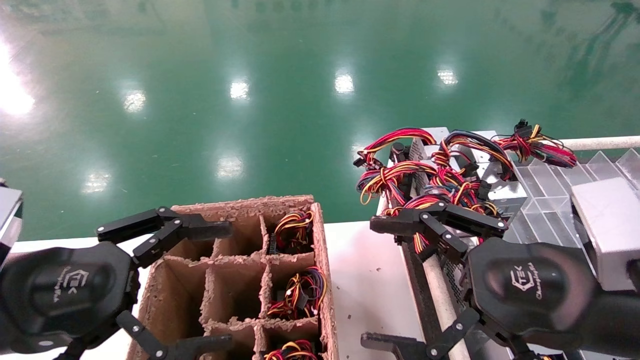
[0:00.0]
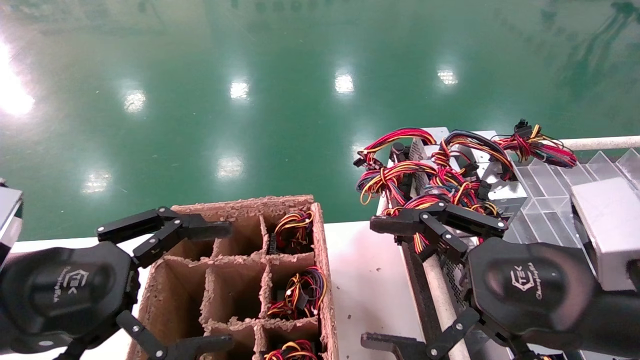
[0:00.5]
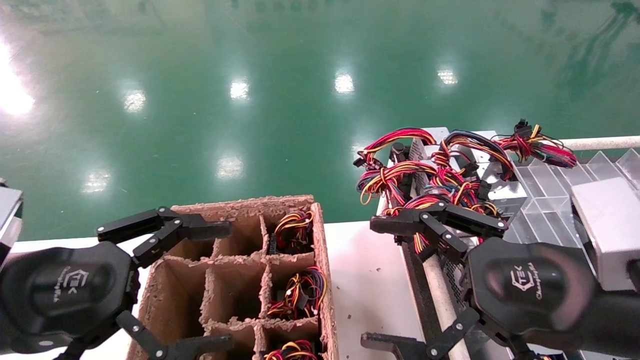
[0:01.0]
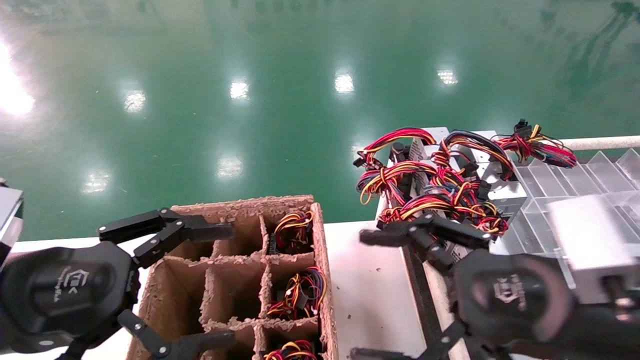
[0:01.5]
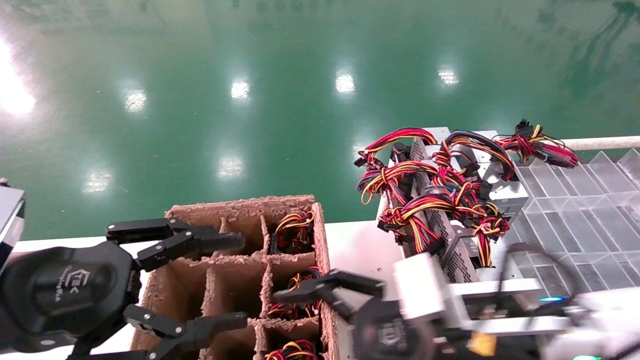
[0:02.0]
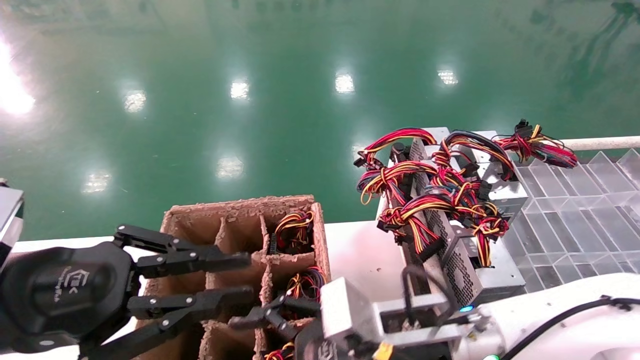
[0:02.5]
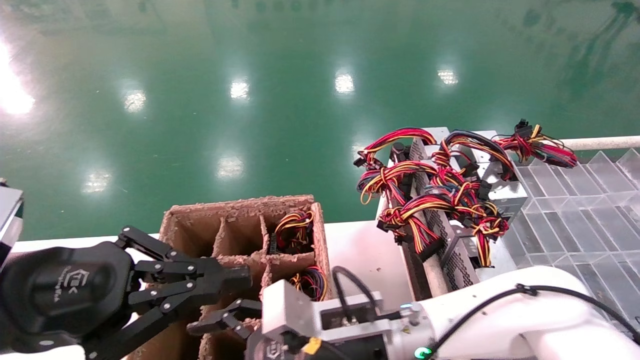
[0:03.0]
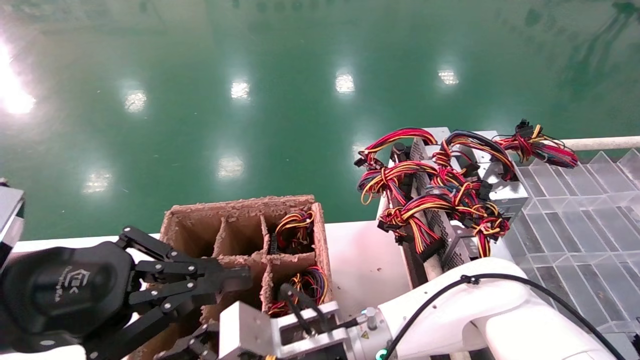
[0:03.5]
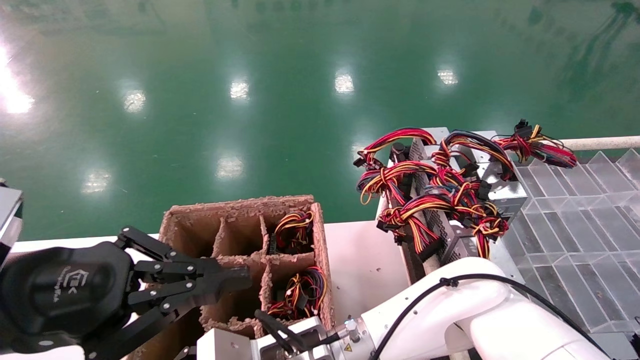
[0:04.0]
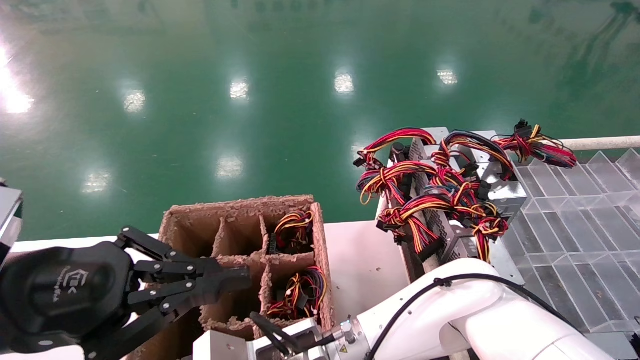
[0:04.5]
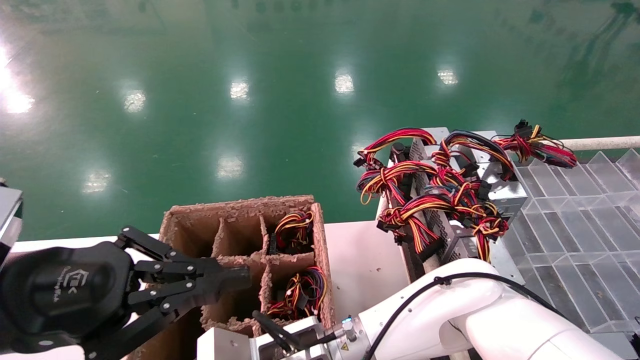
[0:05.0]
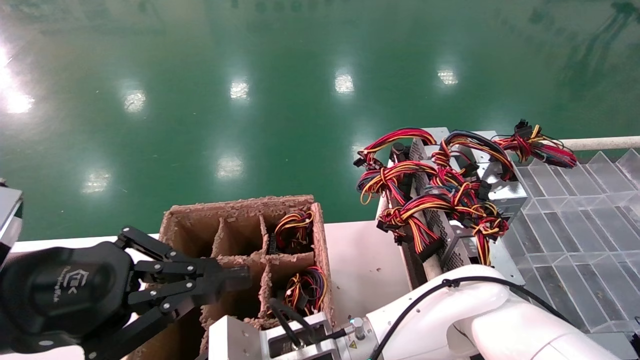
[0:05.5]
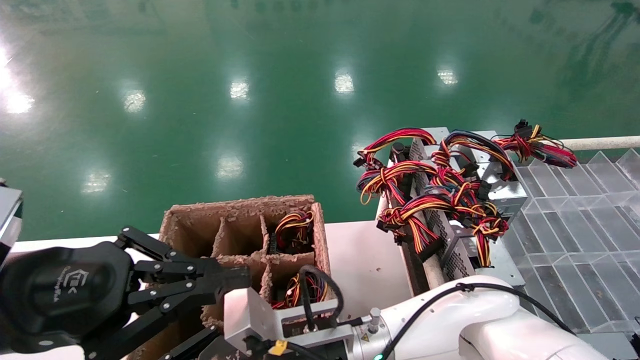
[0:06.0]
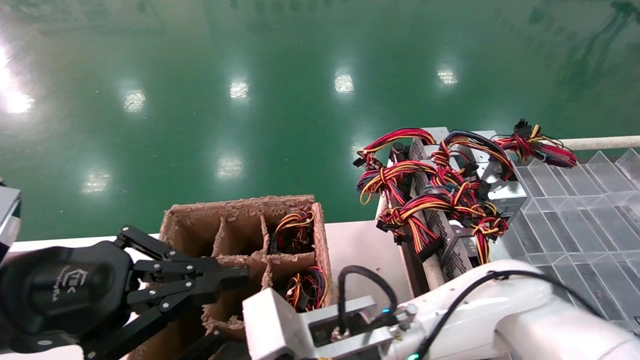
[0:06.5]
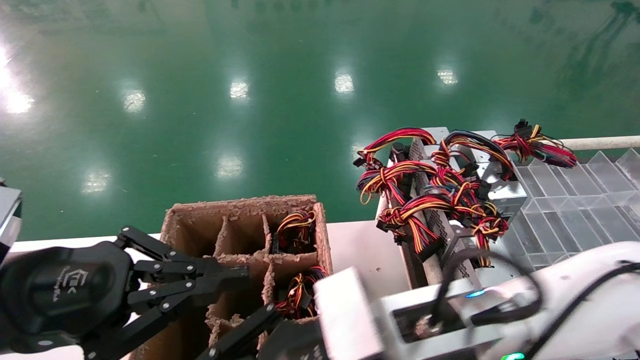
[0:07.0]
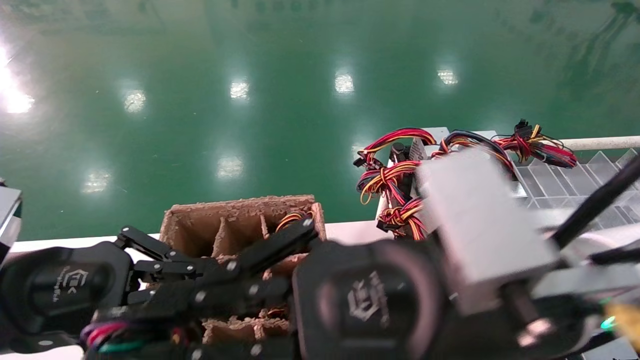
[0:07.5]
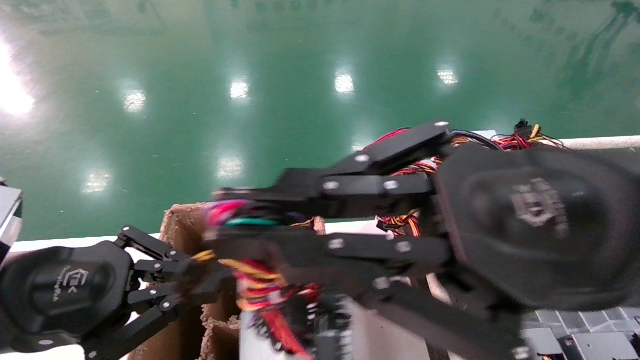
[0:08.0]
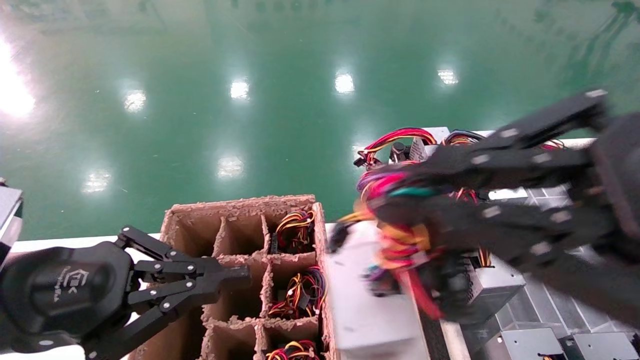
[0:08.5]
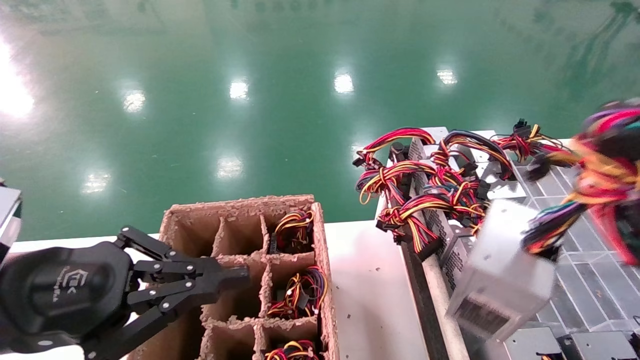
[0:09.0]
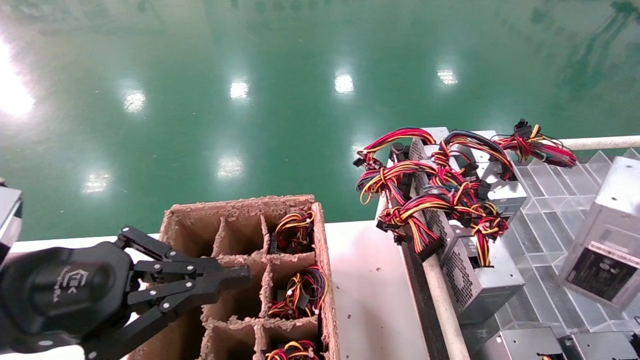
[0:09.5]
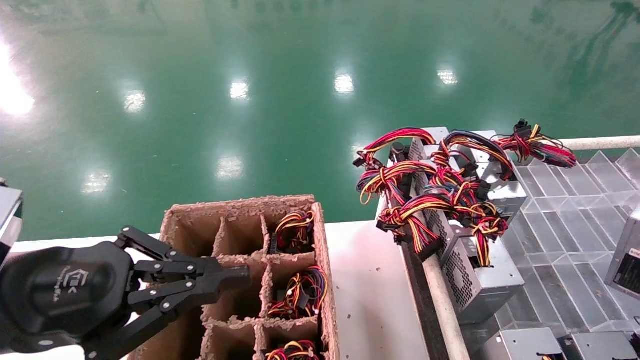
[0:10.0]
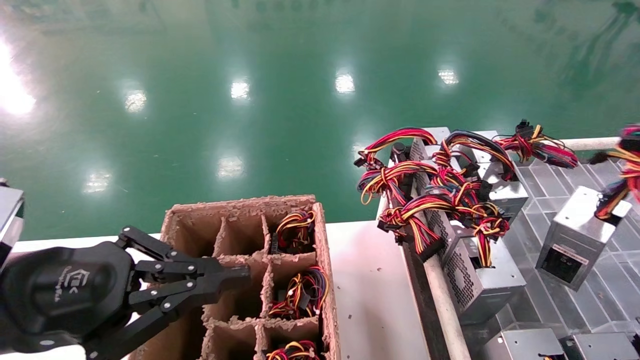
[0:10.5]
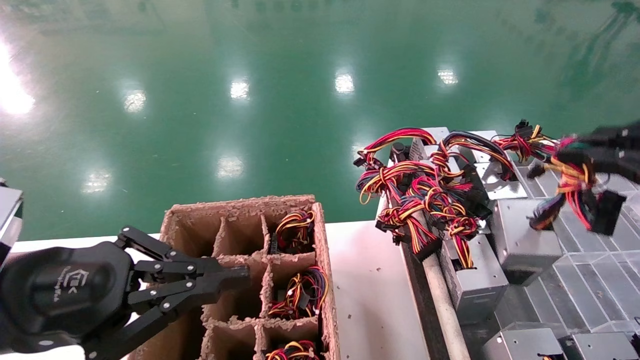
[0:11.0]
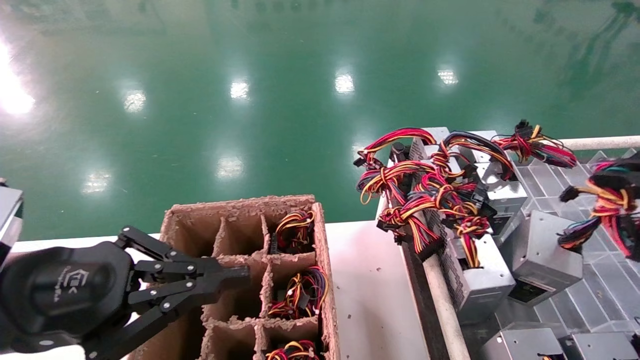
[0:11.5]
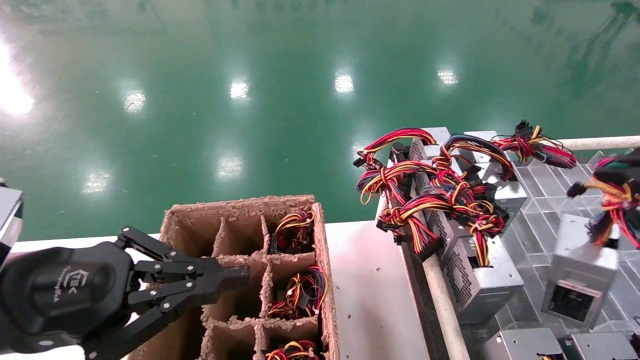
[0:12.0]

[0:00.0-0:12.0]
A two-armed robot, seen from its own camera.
Step, 0:02.0 to 0:05.0: Grab the main unit power supply from the containment box.
0:00.0 to 0:02.0: The right gripper goes approximately 10 cm to the left and downward.
0:02.0 to 0:04.0: The right gripper goes some 20 cm to the left and downward. Meanwhile the left gripper closes up.
0:04.0 to 0:06.0: The right gripper closes its fingers.
0:06.0 to 0:08.0: The right gripper travels upward, to the right and backward by about 30 cm.
0:08.0 to 0:10.0: The right gripper moves to the right, about 30 cm.
0:10.0 to 0:12.0: The right gripper heads forward, covering about 5 cm.

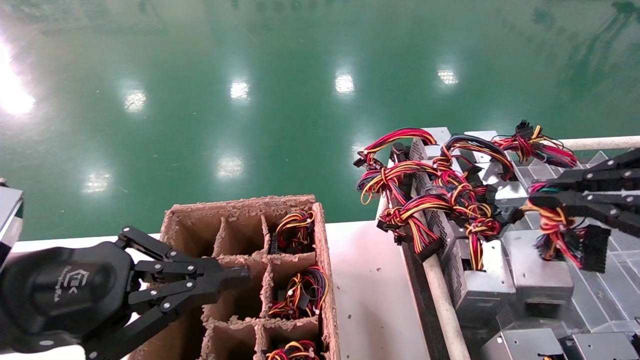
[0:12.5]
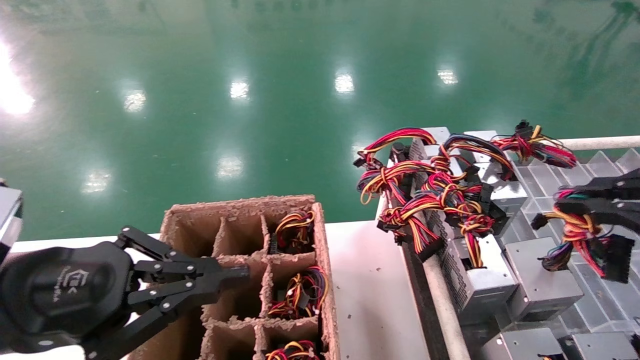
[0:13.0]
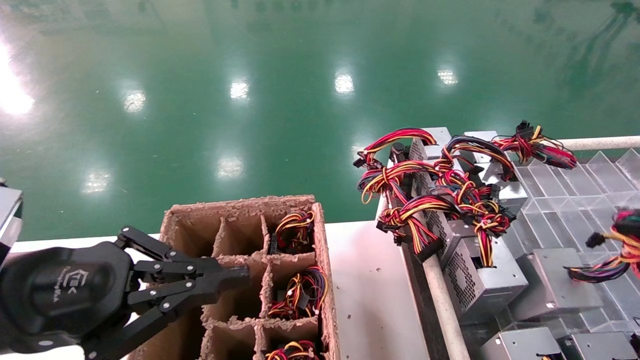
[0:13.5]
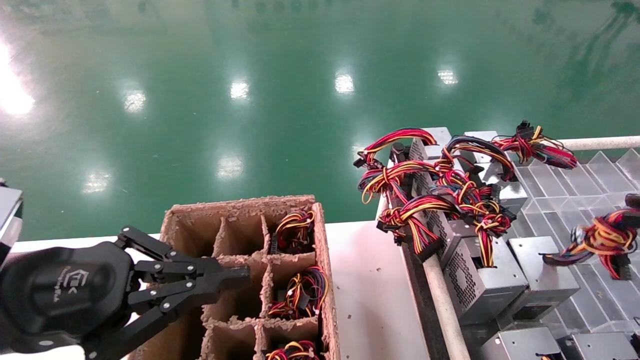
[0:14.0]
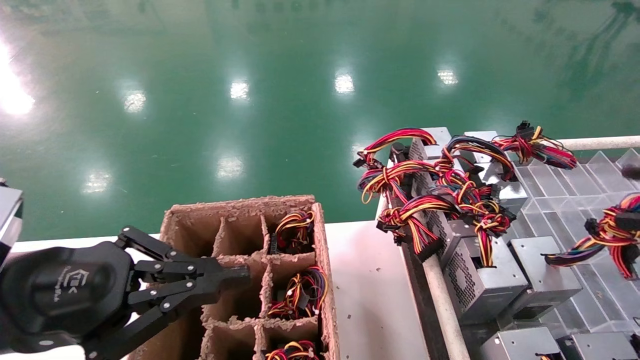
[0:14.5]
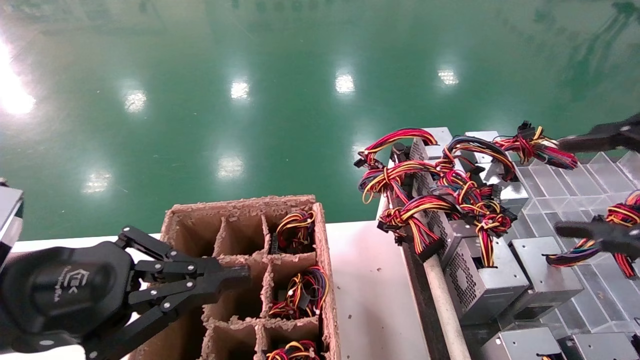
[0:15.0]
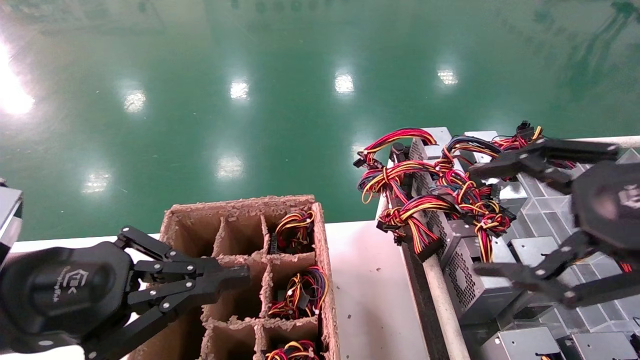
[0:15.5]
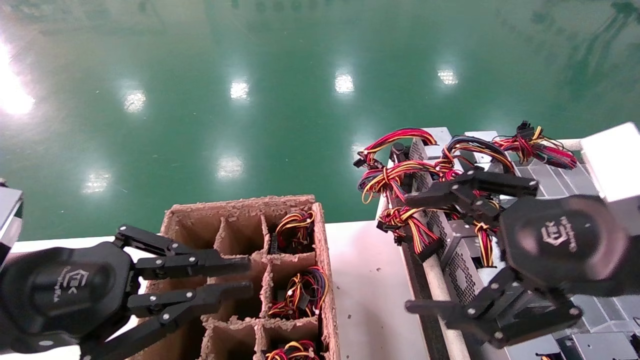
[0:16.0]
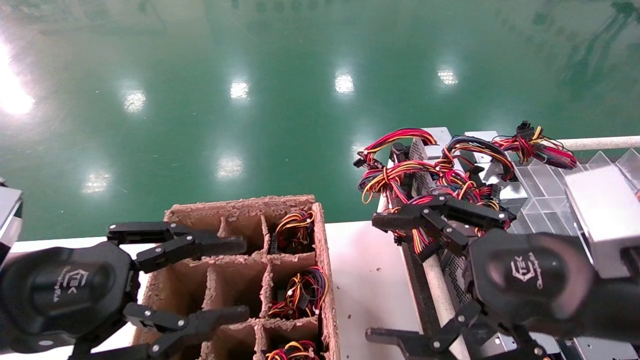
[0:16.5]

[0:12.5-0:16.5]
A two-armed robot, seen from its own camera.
0:12.5 to 0:14.5: The right gripper changes place by approximately 5 cm.
0:14.5 to 0:16.5: The right gripper goes roughly 20 cm to the left, downward and forward, and opens, while the left gripper opens its fingers.

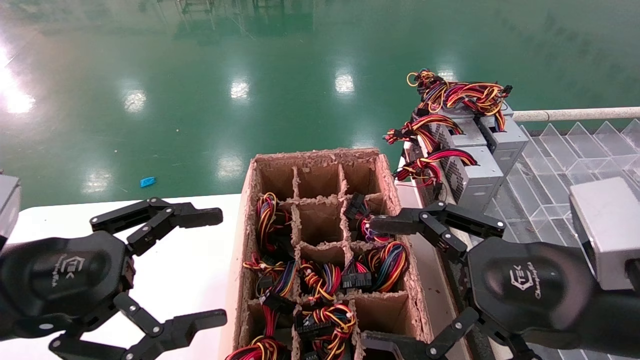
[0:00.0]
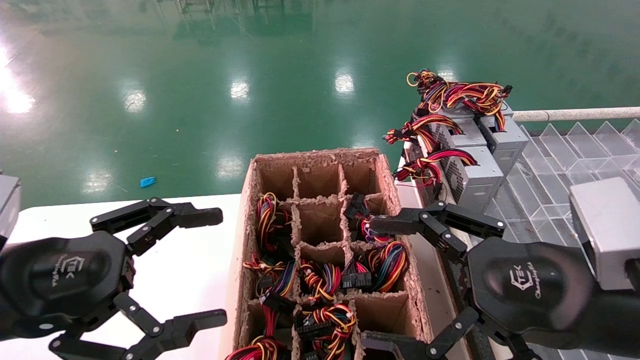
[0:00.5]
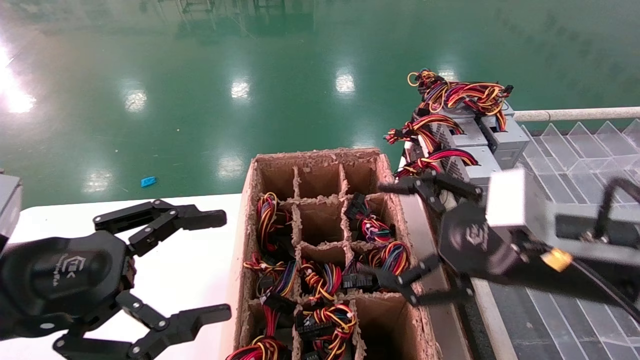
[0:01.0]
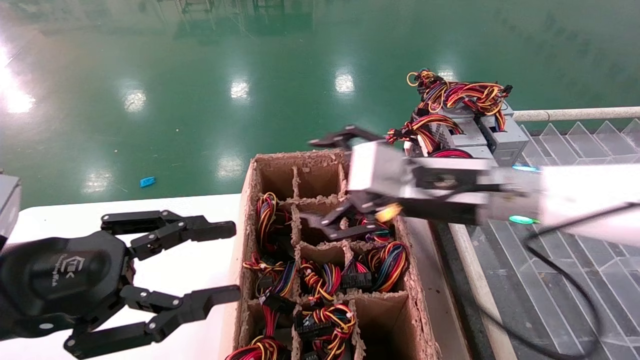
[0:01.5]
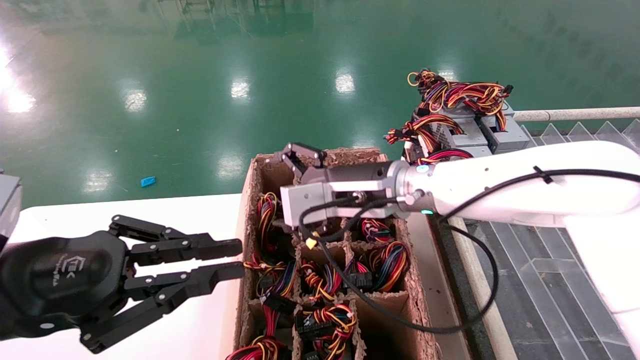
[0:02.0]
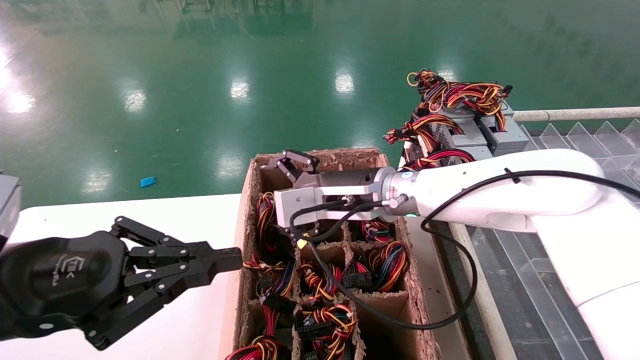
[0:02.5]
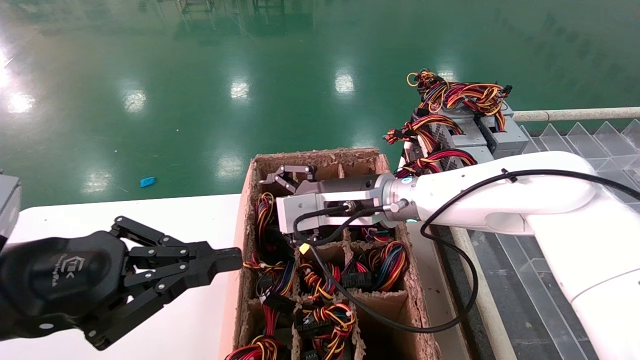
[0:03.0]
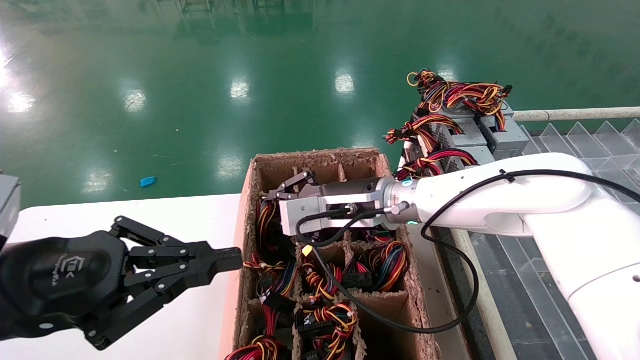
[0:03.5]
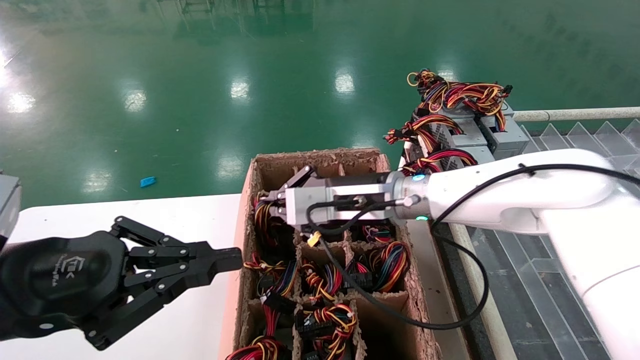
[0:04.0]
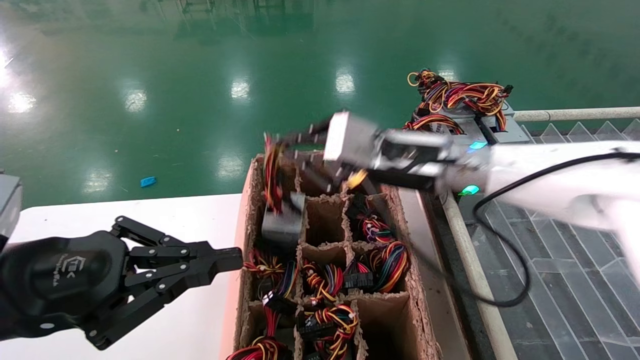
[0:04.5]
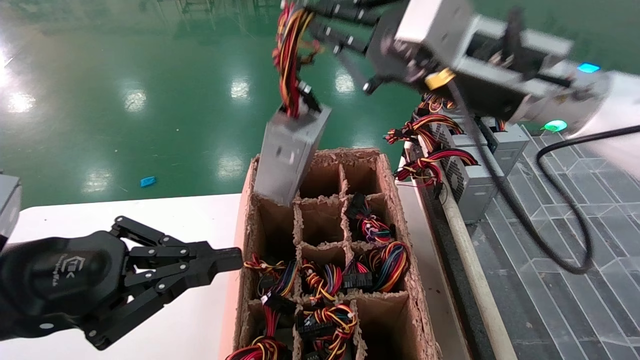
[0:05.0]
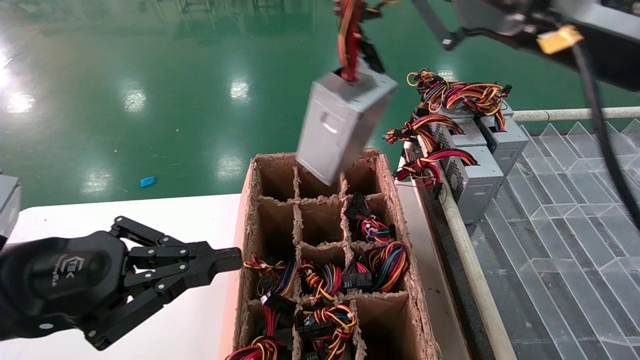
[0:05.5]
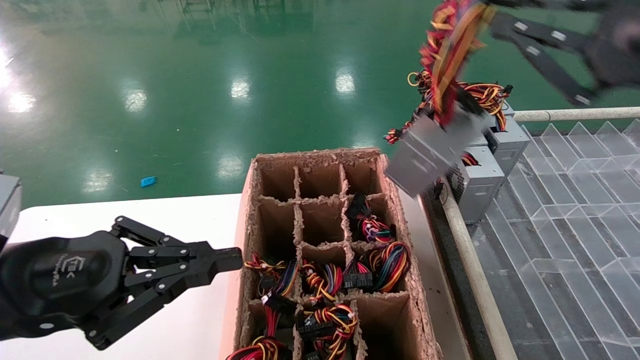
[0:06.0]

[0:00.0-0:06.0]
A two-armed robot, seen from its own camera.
Step, 0:01.5 to 0:03.5: Grab the main unit power supply from the containment box.
0:00.0 to 0:02.0: The left gripper closes its fingers. Meanwhile the right gripper goes roughly 25 cm forward and to the left.
0:02.0 to 0:04.0: The right gripper closes.
0:04.0 to 0:06.0: The right gripper goes roughly 35 cm backward, to the right and upward.
